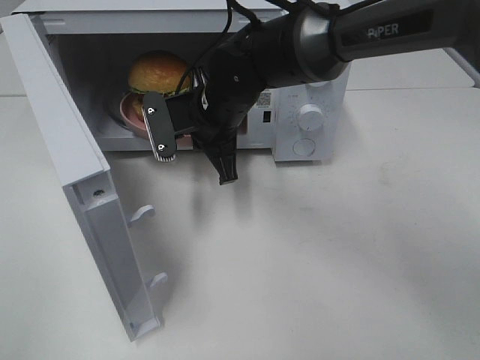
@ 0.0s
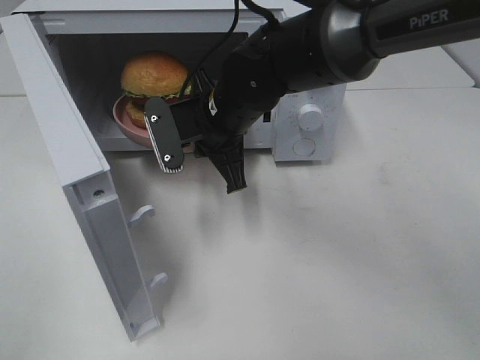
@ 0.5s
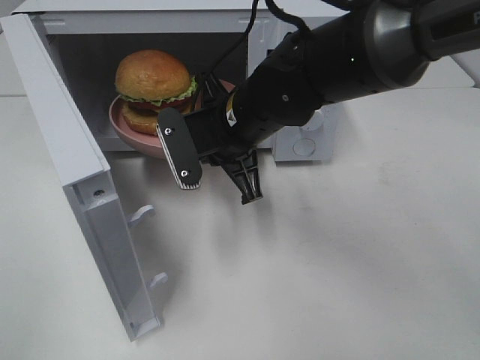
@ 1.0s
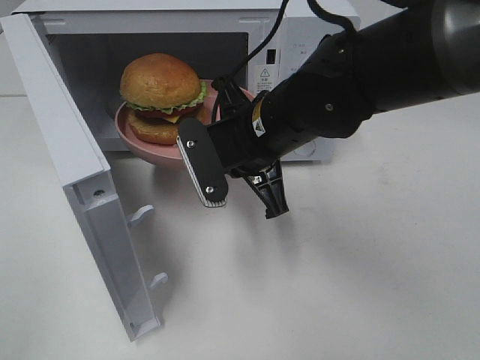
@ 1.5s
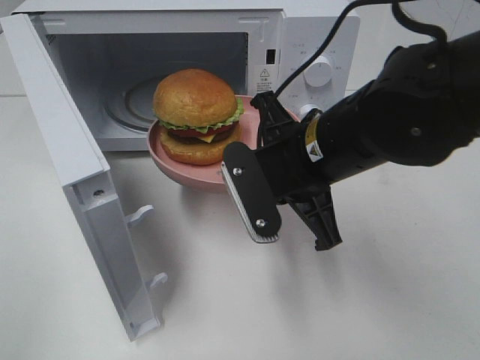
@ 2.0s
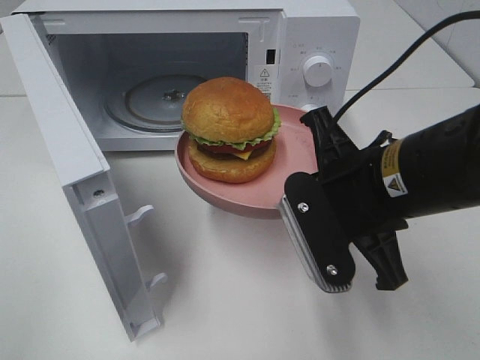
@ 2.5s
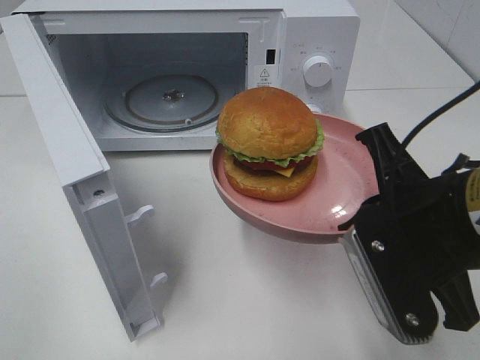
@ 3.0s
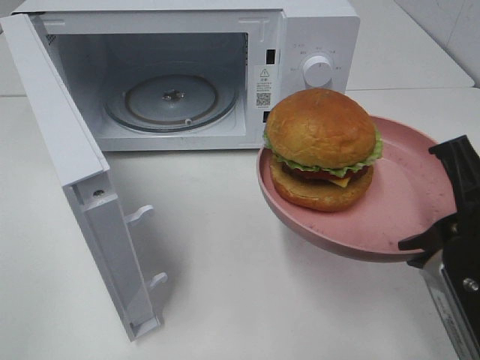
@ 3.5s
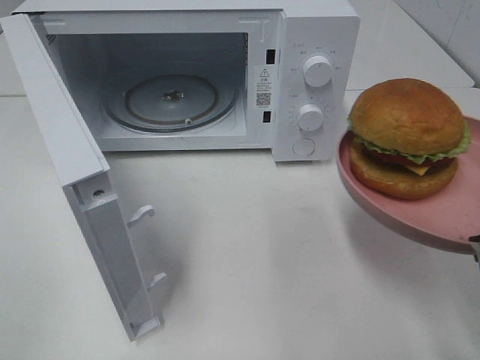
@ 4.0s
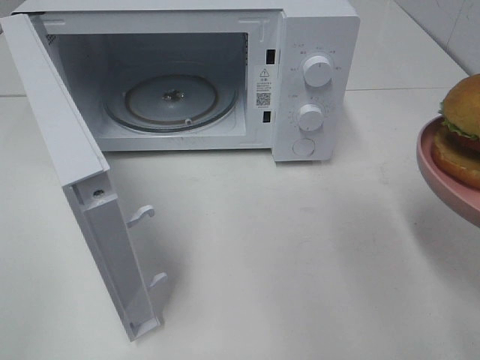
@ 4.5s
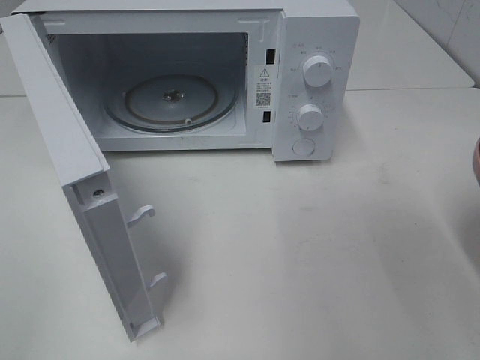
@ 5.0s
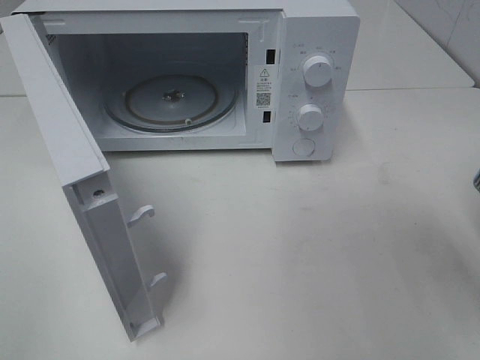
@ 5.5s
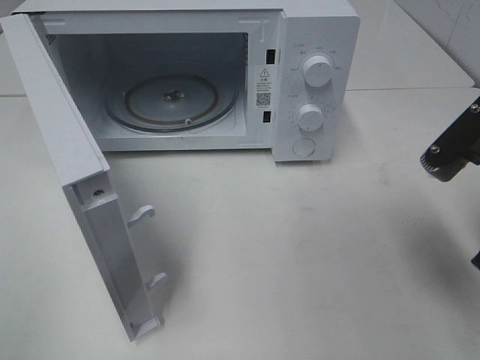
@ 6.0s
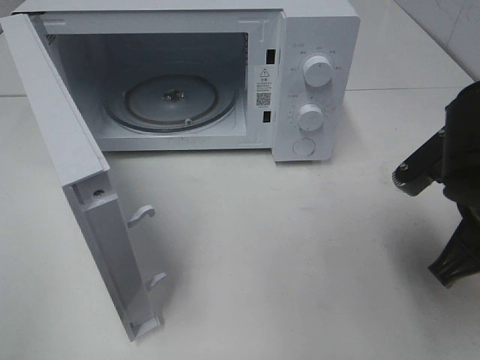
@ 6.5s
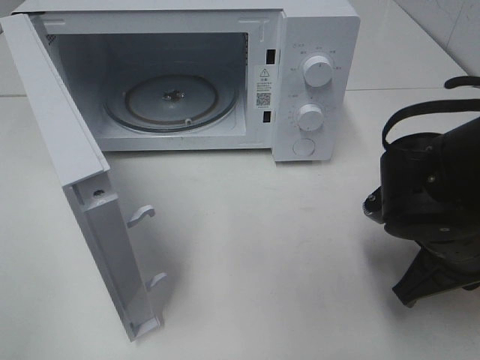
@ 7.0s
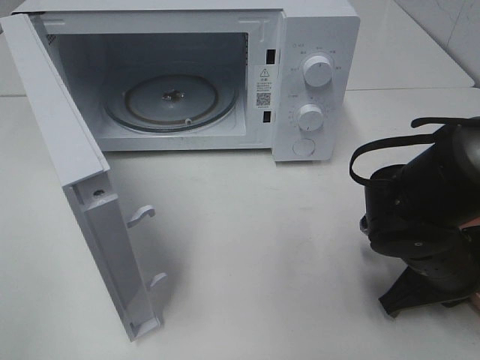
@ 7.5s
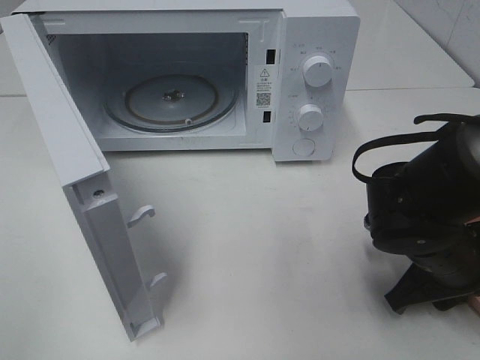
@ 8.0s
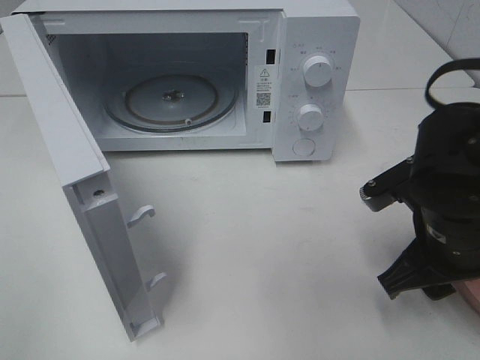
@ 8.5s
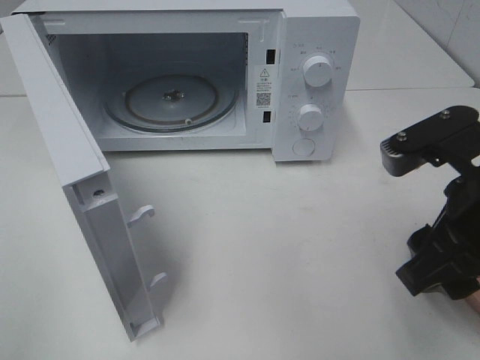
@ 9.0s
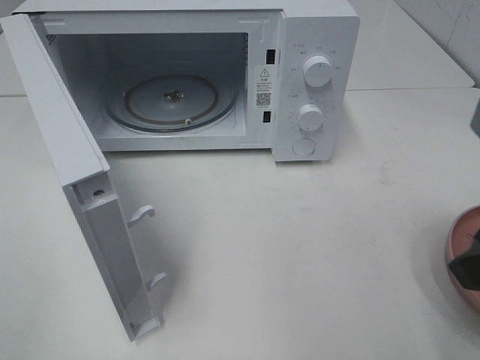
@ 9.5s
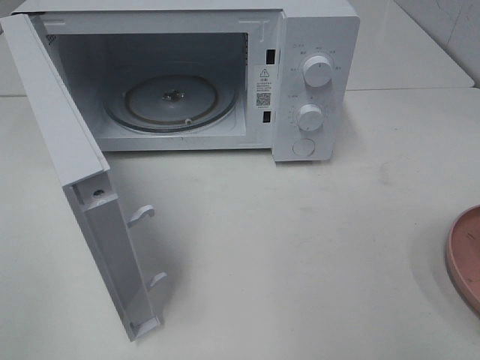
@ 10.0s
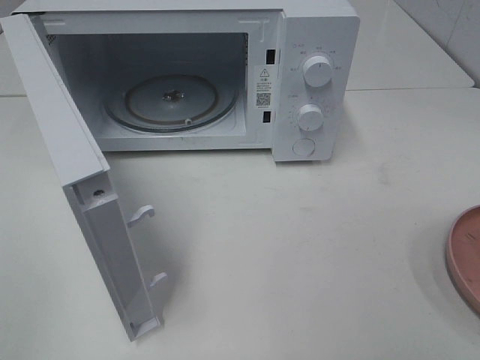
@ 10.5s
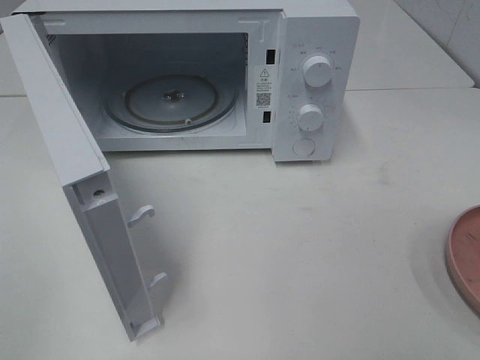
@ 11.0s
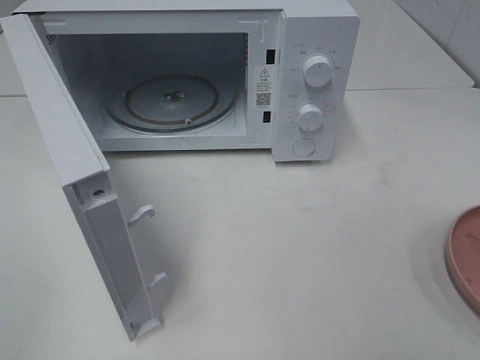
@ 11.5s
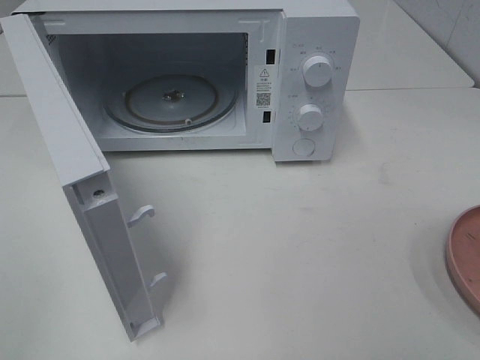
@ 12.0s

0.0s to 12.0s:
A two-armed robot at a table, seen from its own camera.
Task of the whole recording: Heat the burger.
Step, 0.0s to 8.5s: Right hand: place the plate on the table.
0.0s to 2.0s: The right gripper heads backward and to the right, covering about 15 cm.
2.0s to 4.0s: The right gripper goes approximately 20 cm to the right and backward.
4.0s to 6.0s: The right gripper moves forward, approximately 5 cm.
6.0s to 8.0s: The right gripper travels downward by roughly 15 cm, and opens.
8.0s to 10.0s: The right gripper travels upward and backward by approximately 25 cm.

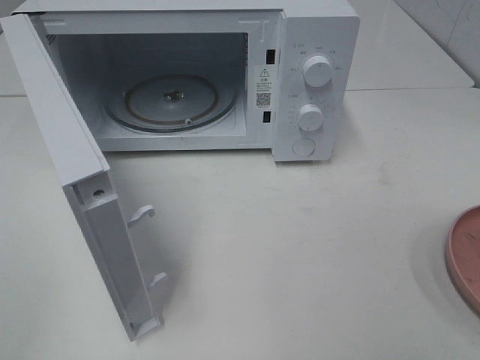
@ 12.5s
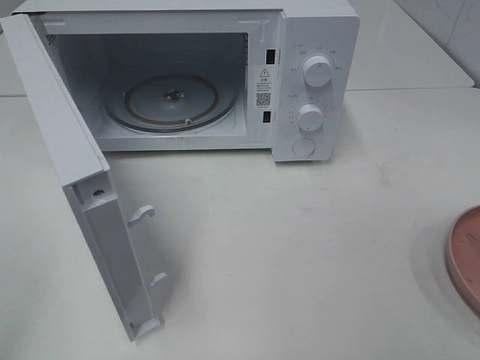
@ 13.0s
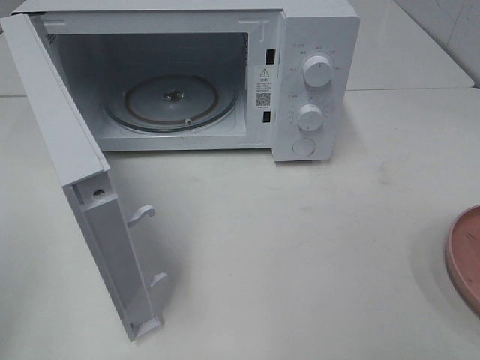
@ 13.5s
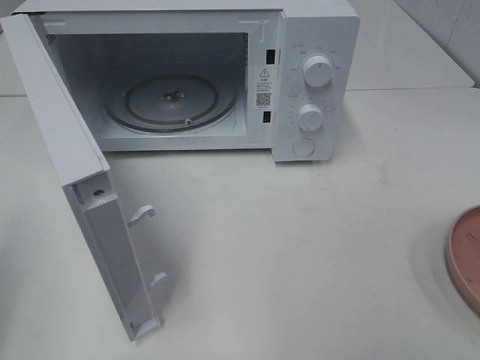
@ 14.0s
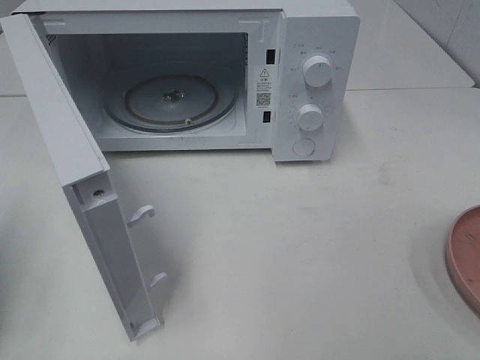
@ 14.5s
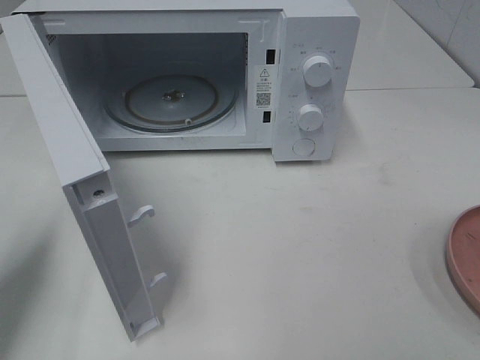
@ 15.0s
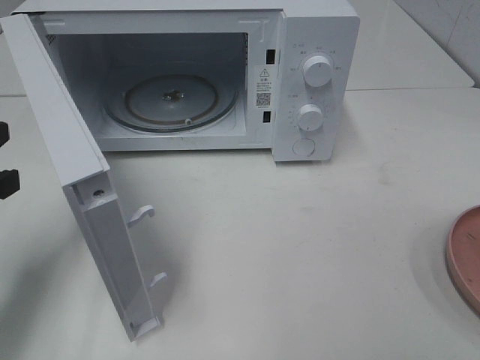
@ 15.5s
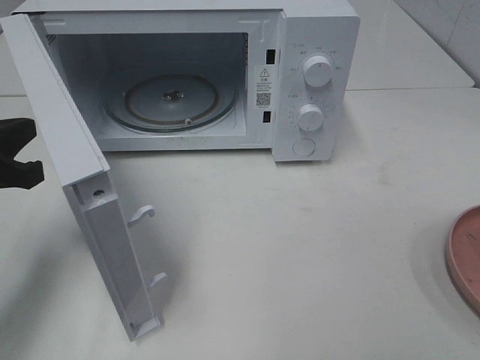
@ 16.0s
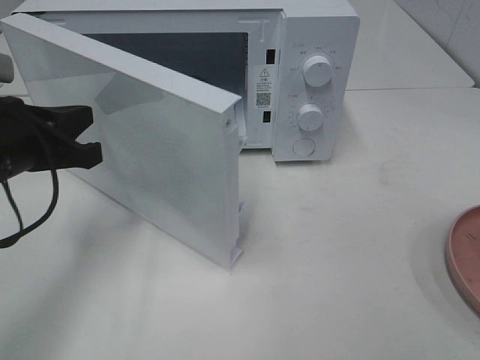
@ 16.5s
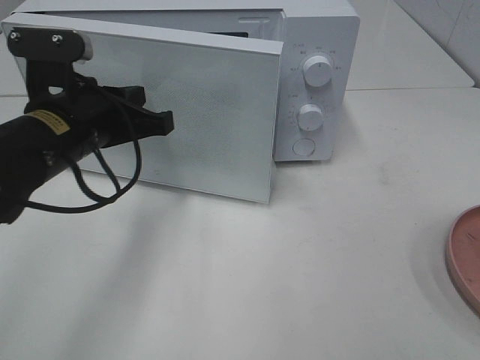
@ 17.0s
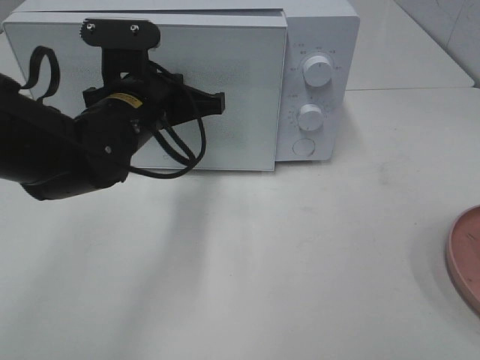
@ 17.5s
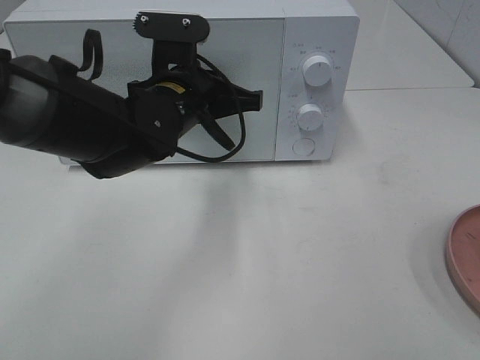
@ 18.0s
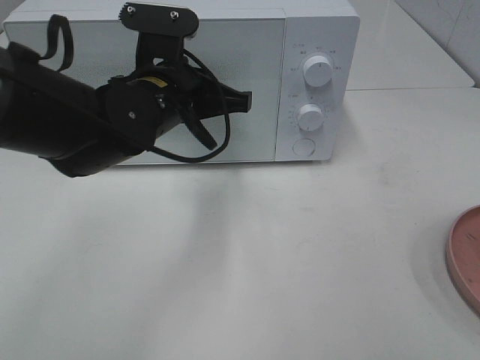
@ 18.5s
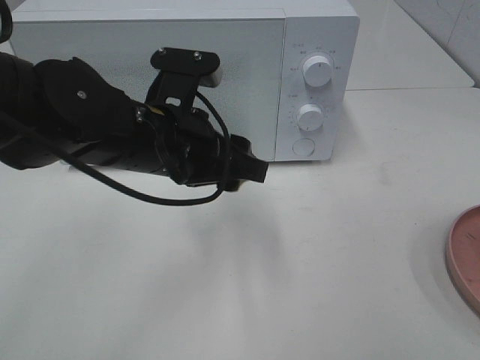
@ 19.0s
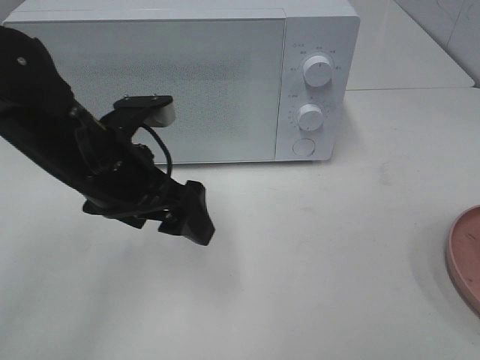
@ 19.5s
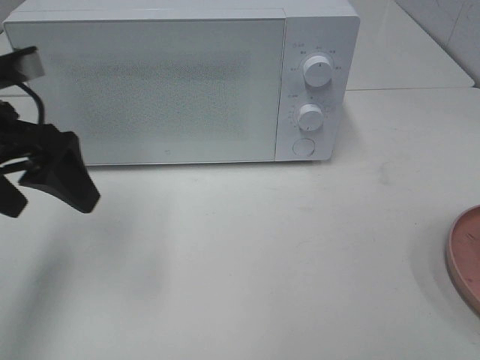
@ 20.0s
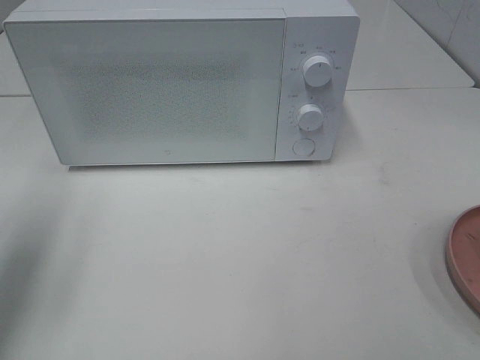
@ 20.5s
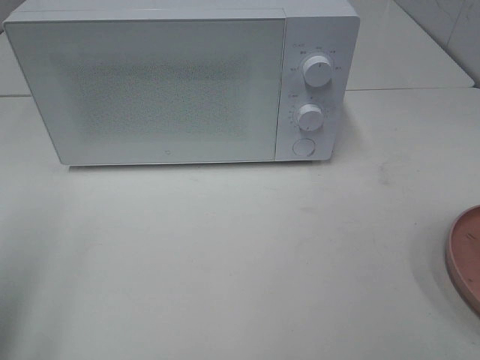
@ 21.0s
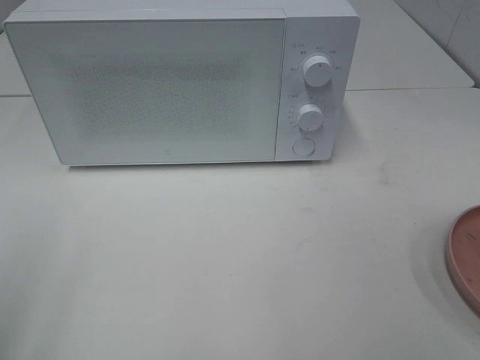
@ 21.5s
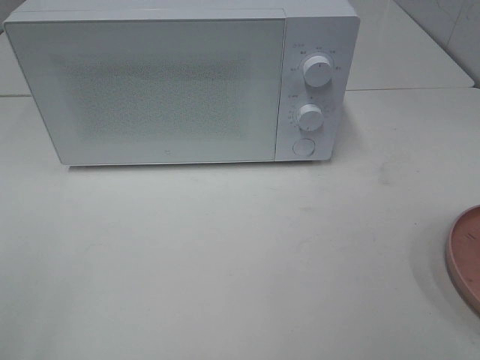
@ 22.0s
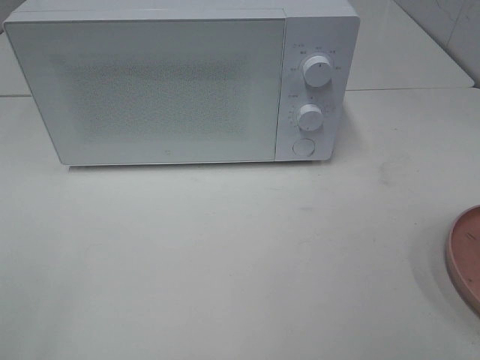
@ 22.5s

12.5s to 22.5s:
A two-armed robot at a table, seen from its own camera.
Task of the whole recording: Heat the burger.
Step, 12.5s to 18.5s: Left hand: close the microwave door.
12.5s to 14.5s: The left gripper is displaced forward by some 15 cm, and closes.
14.5s to 16.5s: The left gripper is displaced to the right and forward by some 15 cm.
16.5s to 18.5s: The left gripper goes approximately 15 cm to the right and forward.
18.5s to 20.5s: The left gripper goes roughly 25 cm to the left and backward, and opens.
20.5s to 22.5s: The left gripper heads backward, covering some 20 cm.

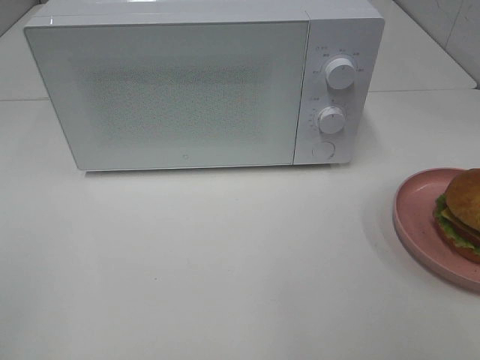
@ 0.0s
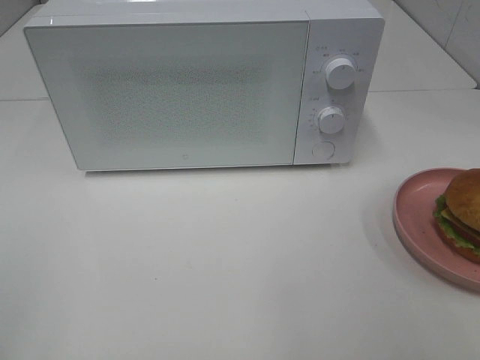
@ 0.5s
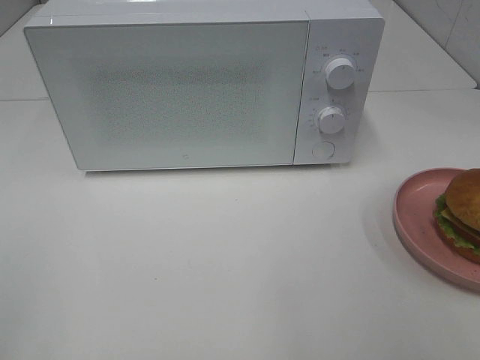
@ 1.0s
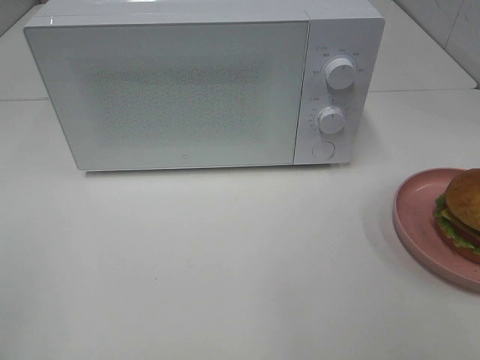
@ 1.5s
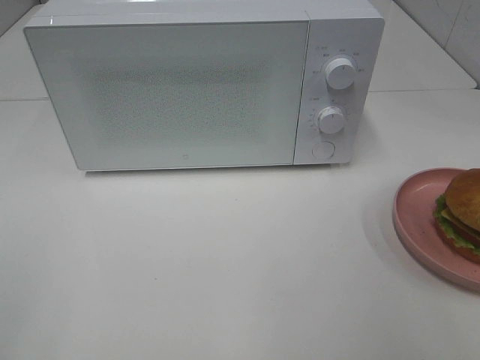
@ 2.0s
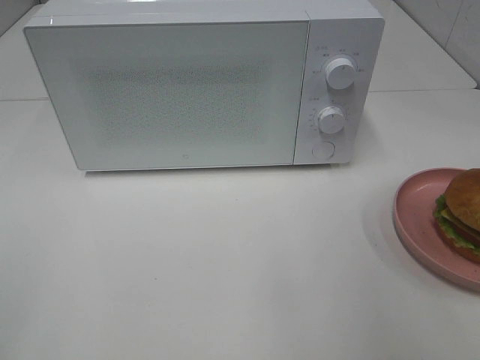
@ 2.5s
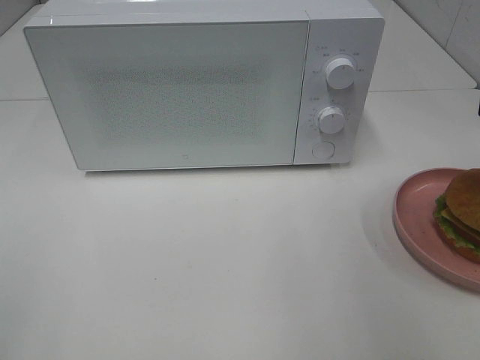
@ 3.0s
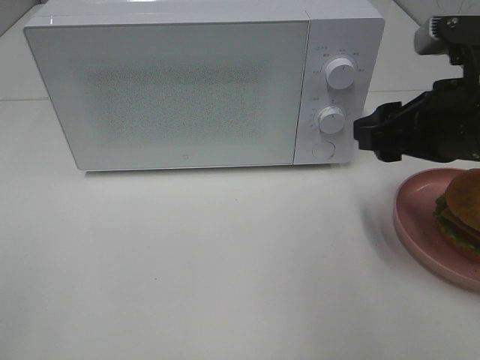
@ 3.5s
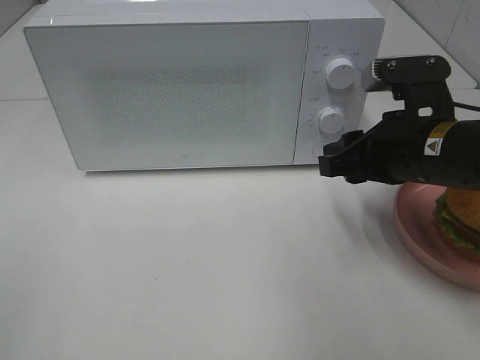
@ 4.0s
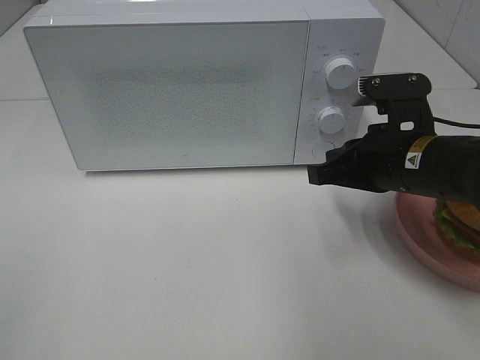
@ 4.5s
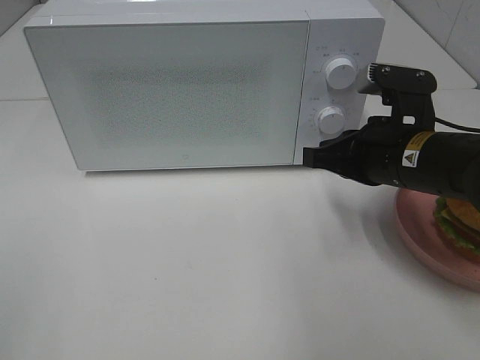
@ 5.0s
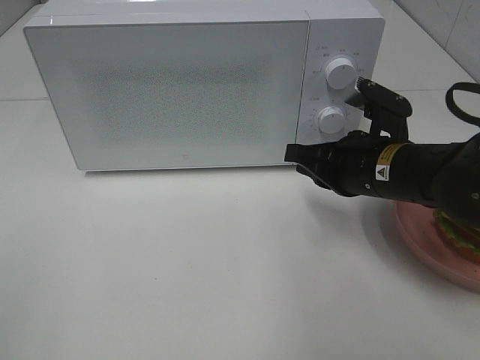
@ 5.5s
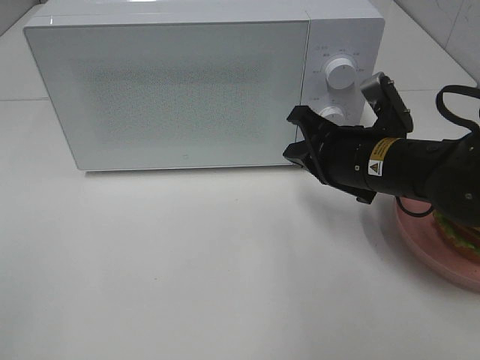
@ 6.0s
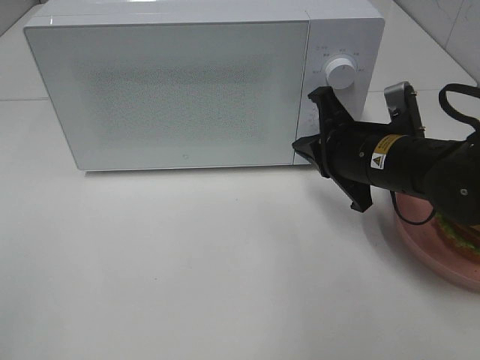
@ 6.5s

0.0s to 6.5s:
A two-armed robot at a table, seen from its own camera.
Task of the whole recording: Heat the burger.
2.0s to 4.5s: The right gripper travels forward, downward and to the left by about 30 cm, and closes up.
